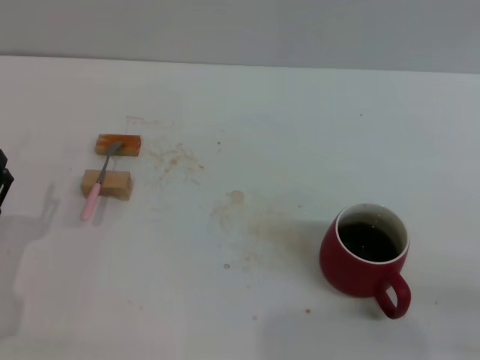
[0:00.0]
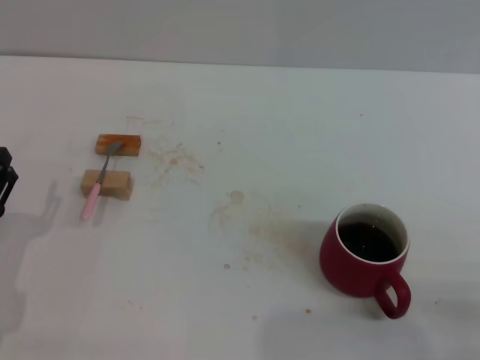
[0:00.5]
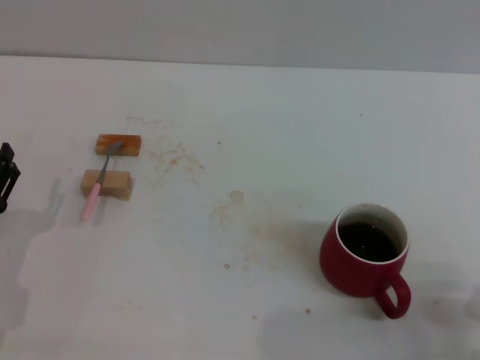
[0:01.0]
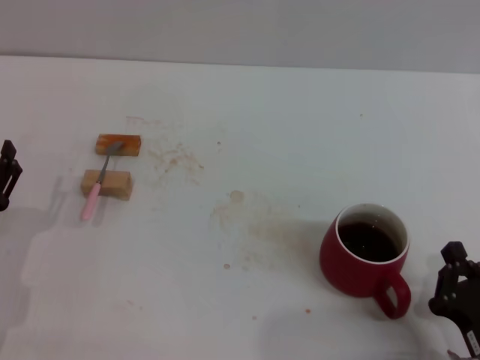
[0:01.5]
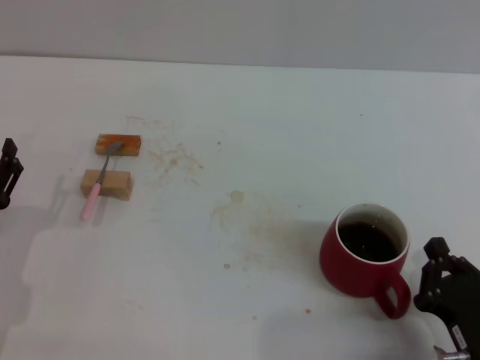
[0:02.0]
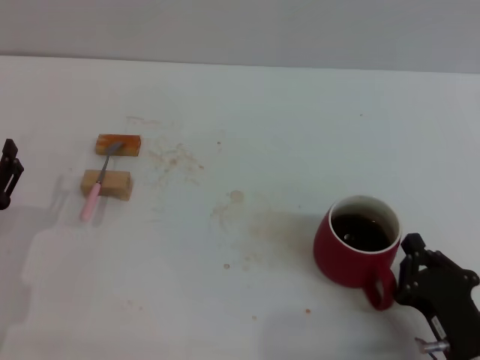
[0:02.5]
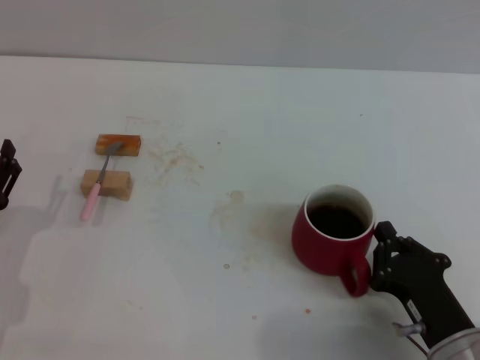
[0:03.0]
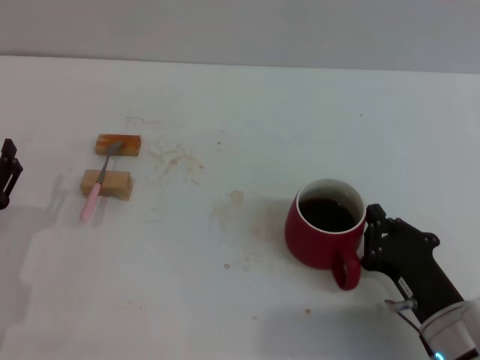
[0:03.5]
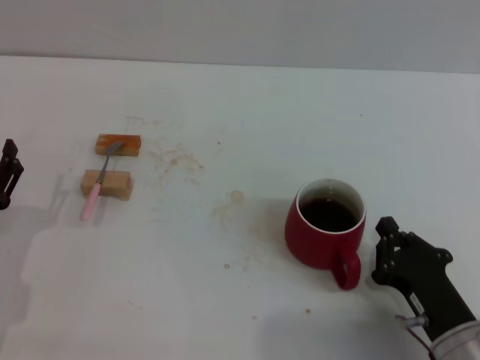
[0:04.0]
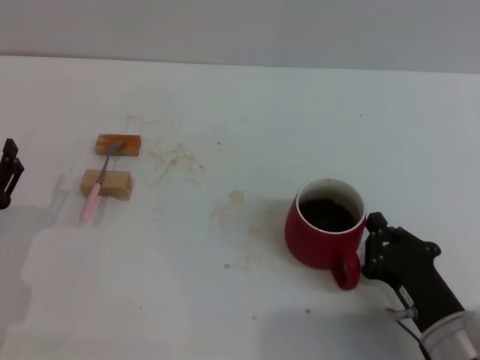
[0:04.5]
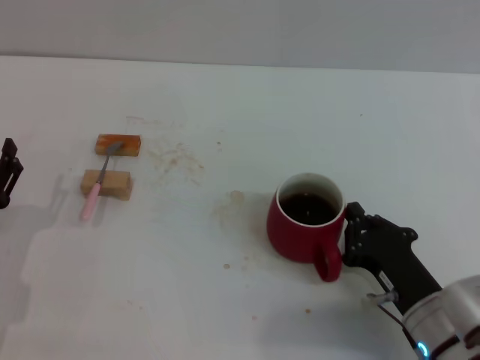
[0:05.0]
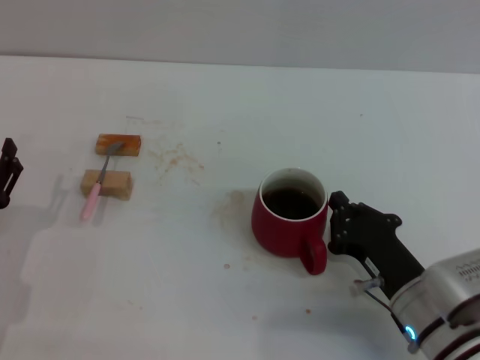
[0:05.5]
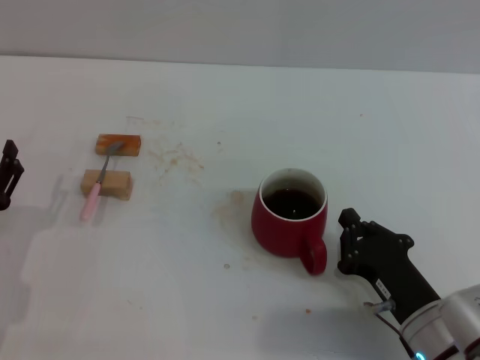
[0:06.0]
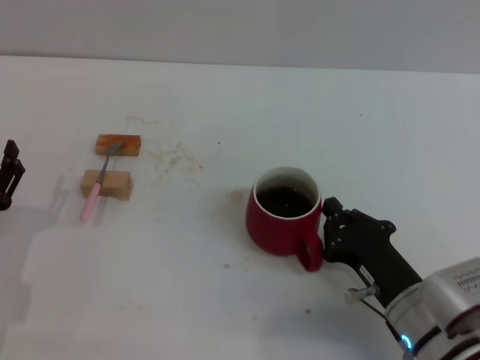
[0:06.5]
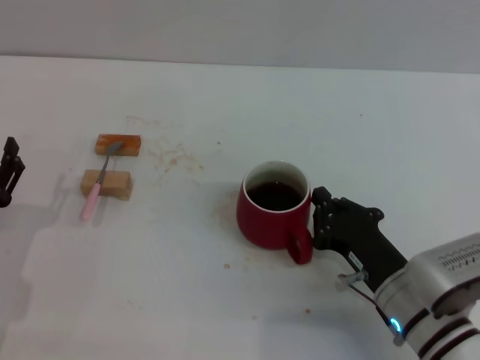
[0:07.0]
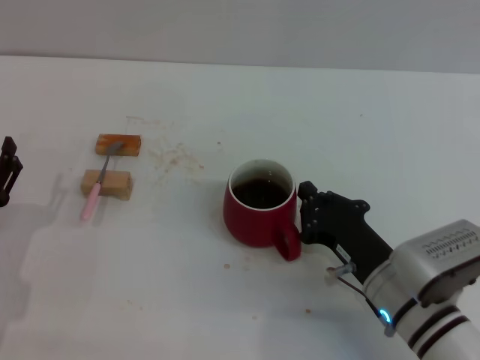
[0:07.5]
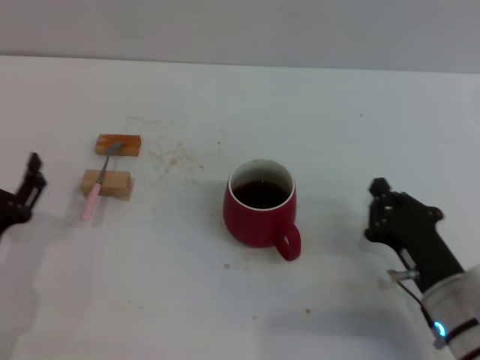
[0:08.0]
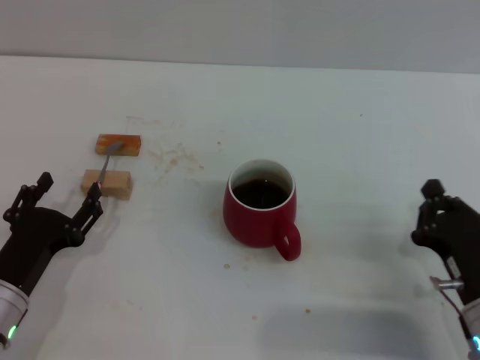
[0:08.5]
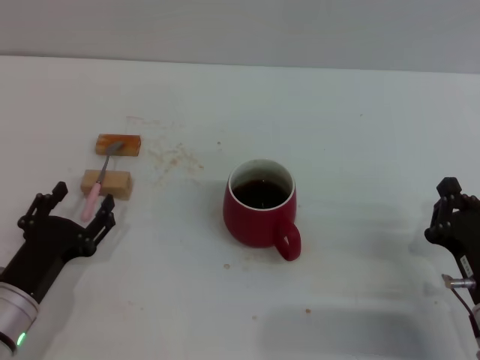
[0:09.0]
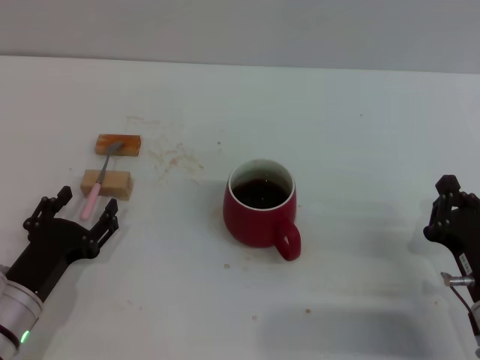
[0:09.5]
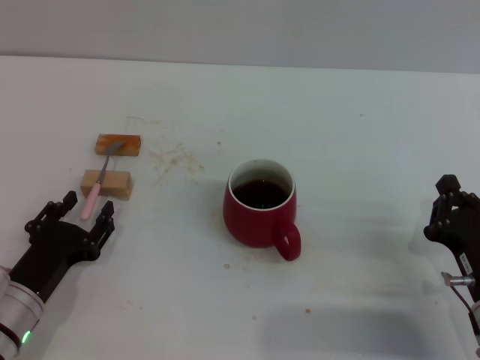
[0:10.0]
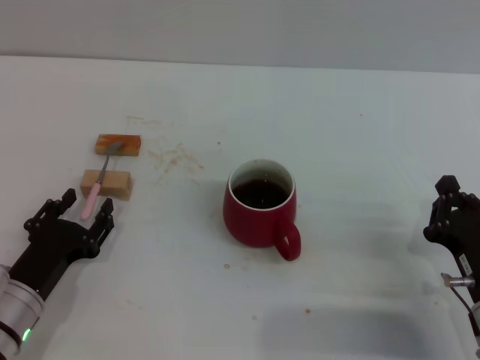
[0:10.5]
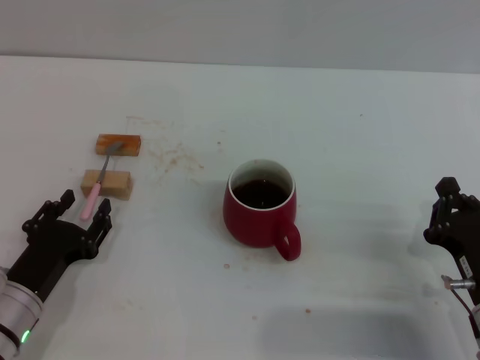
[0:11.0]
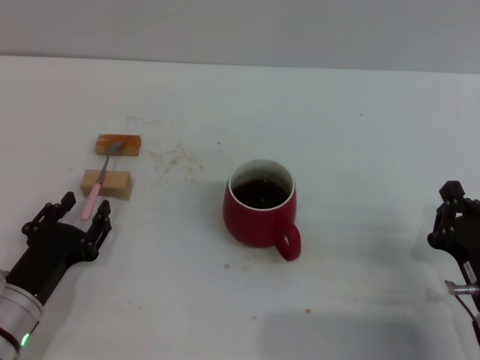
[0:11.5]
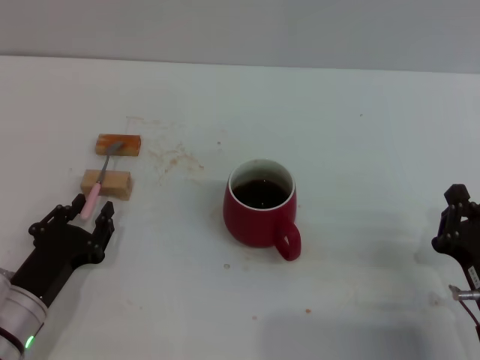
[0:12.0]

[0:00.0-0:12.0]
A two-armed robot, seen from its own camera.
Task of the whole recording: Move the red cup to the center, lift the pink spoon, stir it three times in the cup, and put the spoon into the cup.
Step, 0:00.0 to 0:07.5: Move the cup with coffee to the center of view with the right gripper.
0:00.0 to 0:02.0: The right gripper heads to the left, covering some 10 cm.
0:04.0 to 0:06.0: The grippers stay close to where they were, moving slightly.
0:06.0 to 0:08.0: The grippers make only small movements.
0:08.0 to 0:10.0: The grippers move only a little.
0:10.0 to 0:12.0: The left gripper closes up.

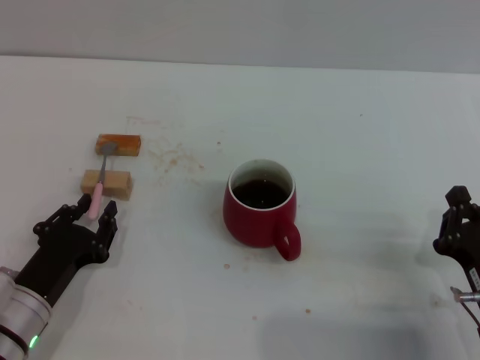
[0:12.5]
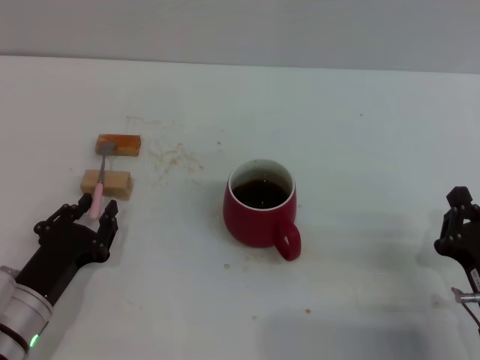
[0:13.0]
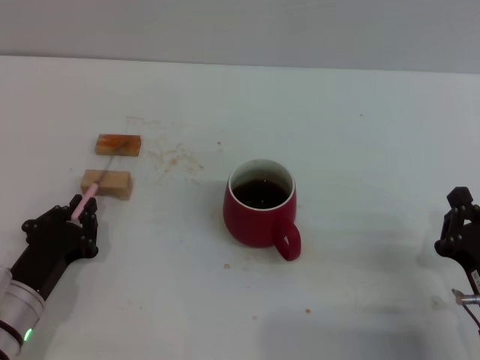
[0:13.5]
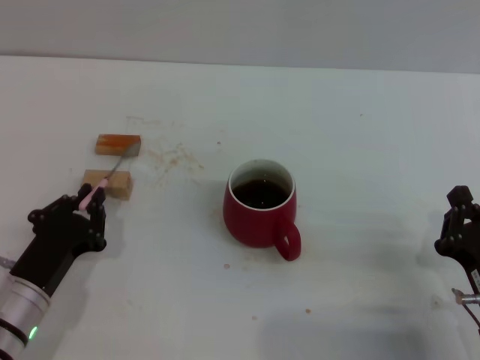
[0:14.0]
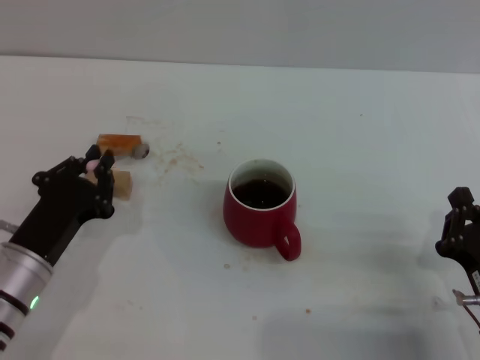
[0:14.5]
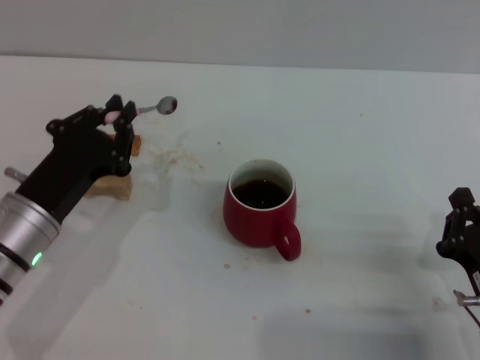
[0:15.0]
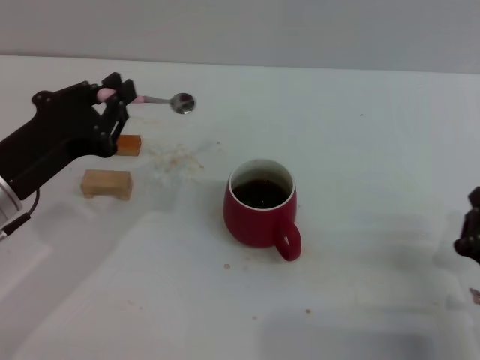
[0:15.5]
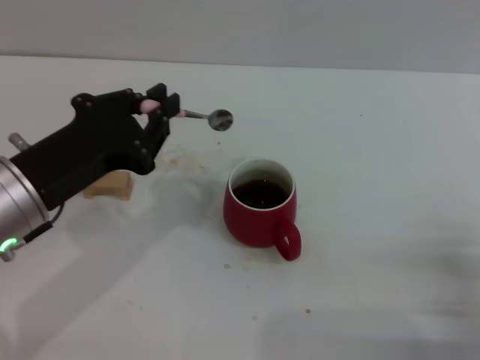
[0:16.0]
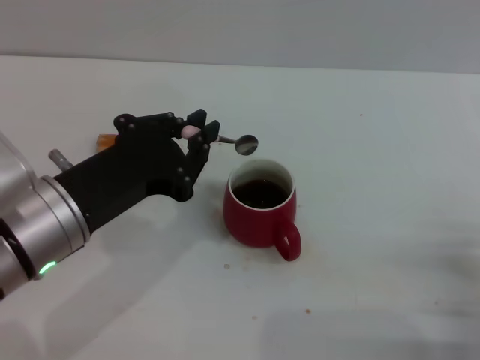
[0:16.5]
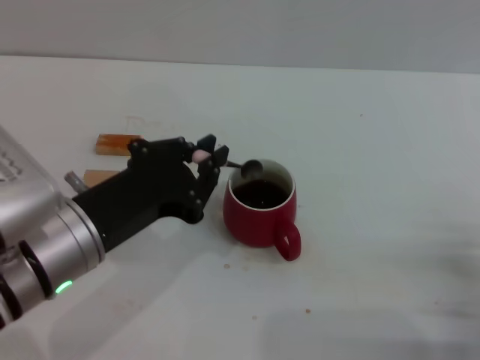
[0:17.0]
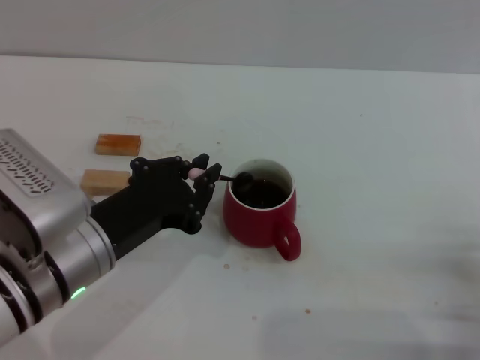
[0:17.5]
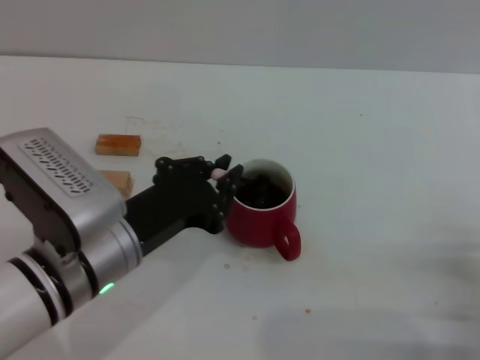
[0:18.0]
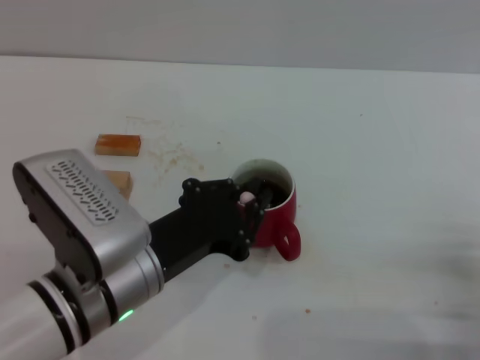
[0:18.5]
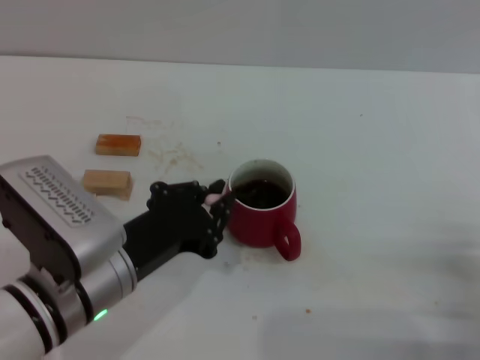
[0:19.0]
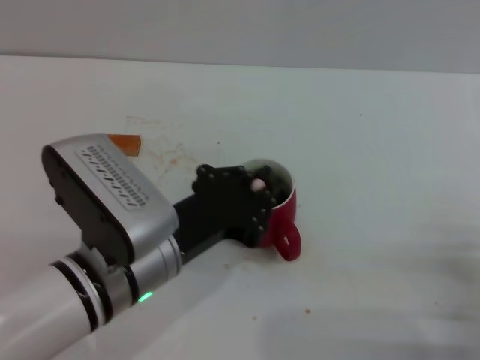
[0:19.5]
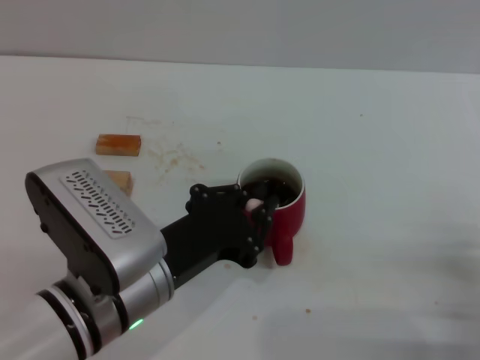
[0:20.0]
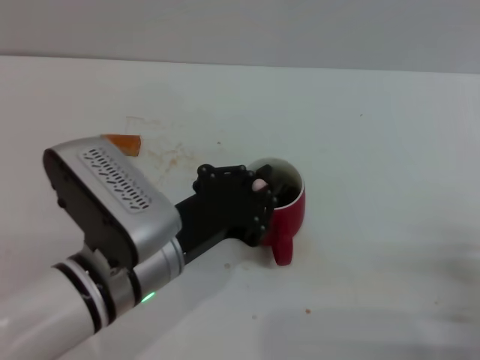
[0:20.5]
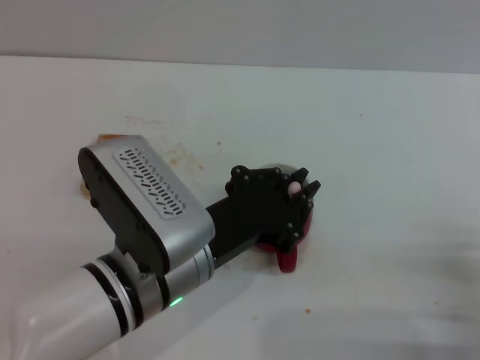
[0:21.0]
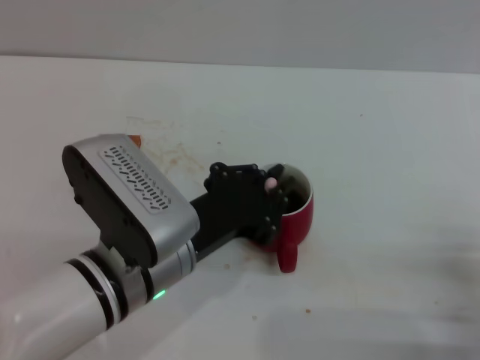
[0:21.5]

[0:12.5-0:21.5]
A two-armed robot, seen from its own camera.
Task of the whole recording: Move the red cup to the center, lift the pink spoon, stir it three times in the cup, and put the spoon into the cup.
Step, 0:12.5 to 0:14.5: Pick up the spoon with the left gripper.
0:12.5 to 0:14.5: The left gripper closes its fingers.
0:14.5 to 0:17.0: The left gripper heads upward and to the right, covering about 15 cm.
0:17.0 to 0:19.5: The left gripper is displaced to the right by roughly 5 cm.
0:19.5 to 0:21.5: The grippers stay close to where they were, moving slightly.

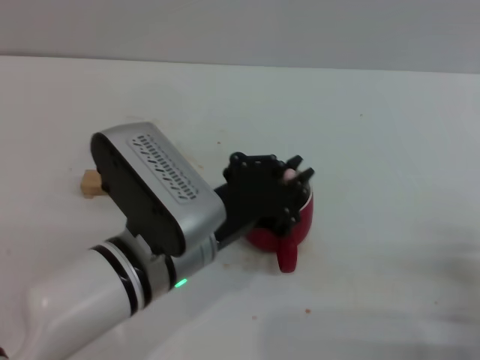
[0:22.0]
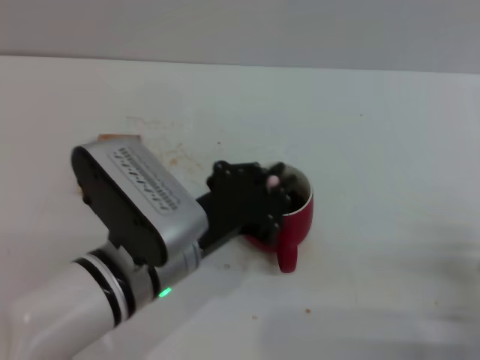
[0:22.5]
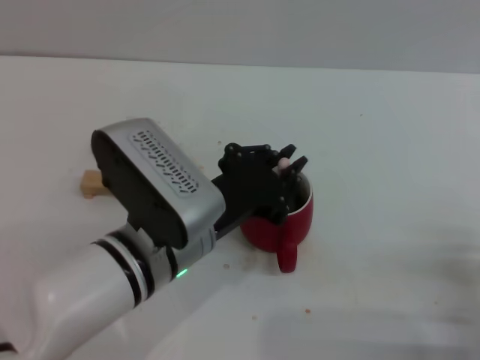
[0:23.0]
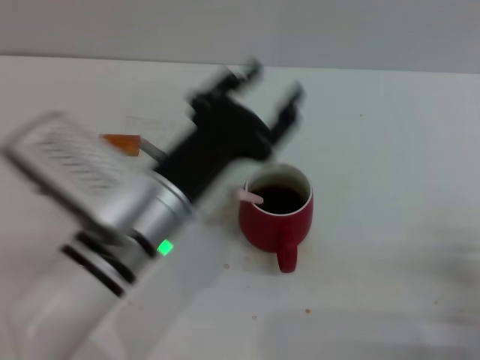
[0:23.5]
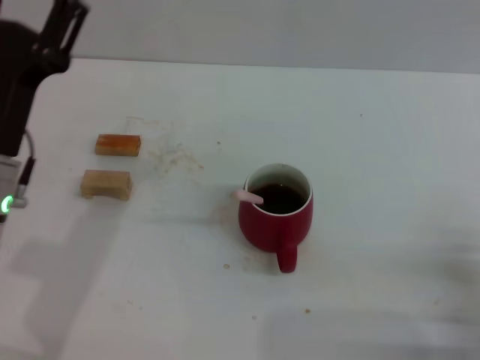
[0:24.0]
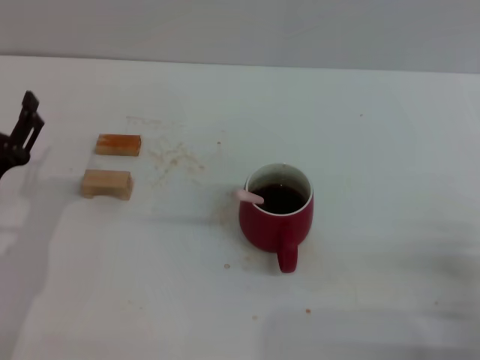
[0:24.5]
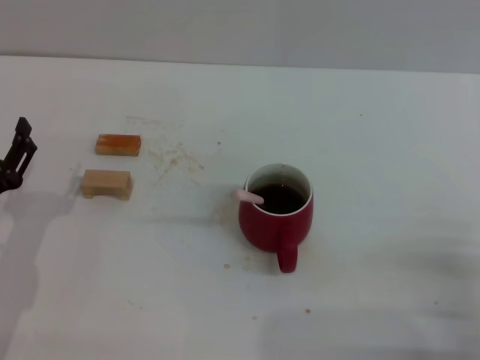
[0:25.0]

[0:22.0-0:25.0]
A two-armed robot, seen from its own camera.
Task of the whole recording: Move the red cup to the center, lift the pink spoon, stir it three times in the cup, and put the spoon into the cup.
0:22.0 to 0:23.5: The left gripper opens its fingers.
0:23.5 to 0:25.0: The left gripper goes approximately 20 cm to the left and downward, and opens up.
